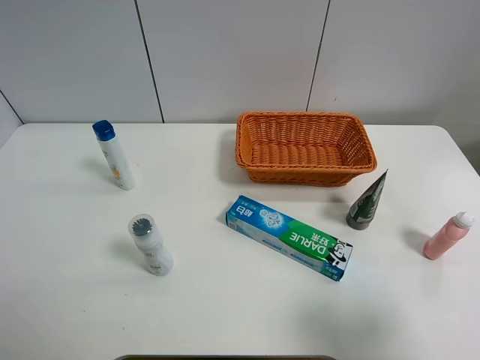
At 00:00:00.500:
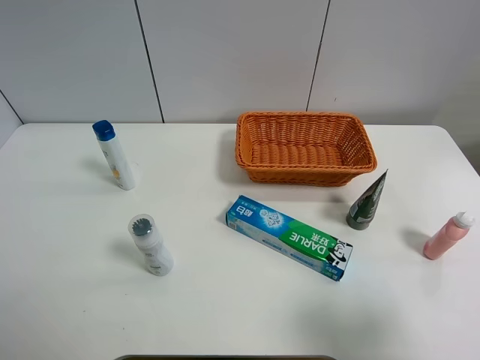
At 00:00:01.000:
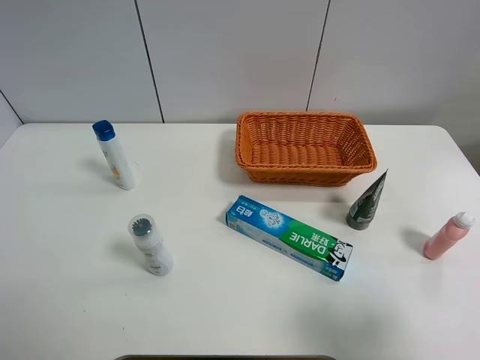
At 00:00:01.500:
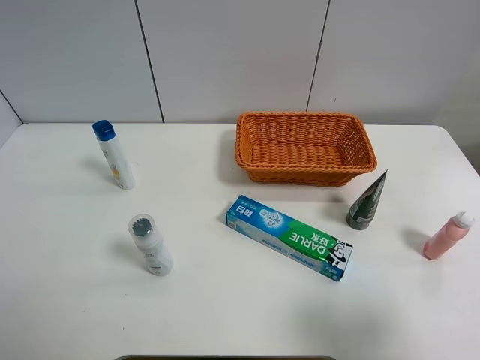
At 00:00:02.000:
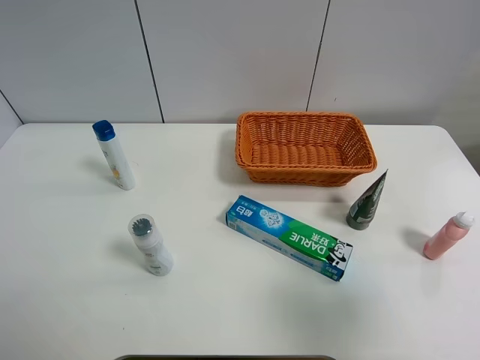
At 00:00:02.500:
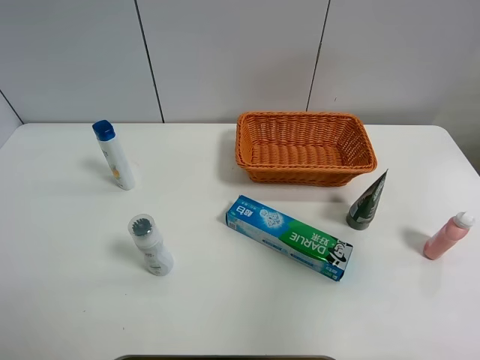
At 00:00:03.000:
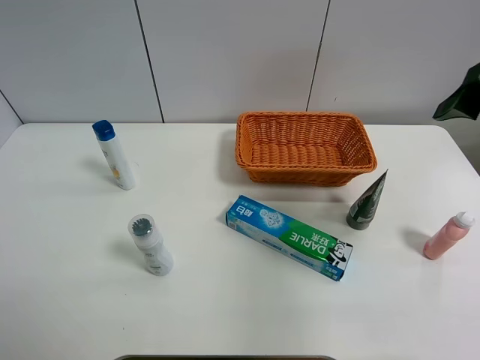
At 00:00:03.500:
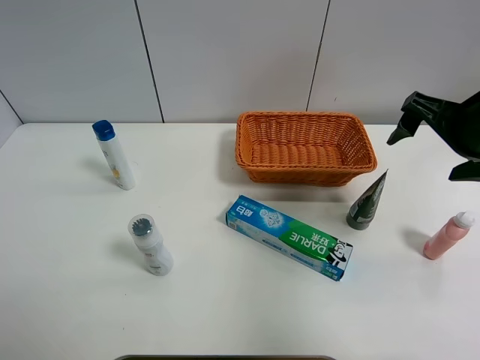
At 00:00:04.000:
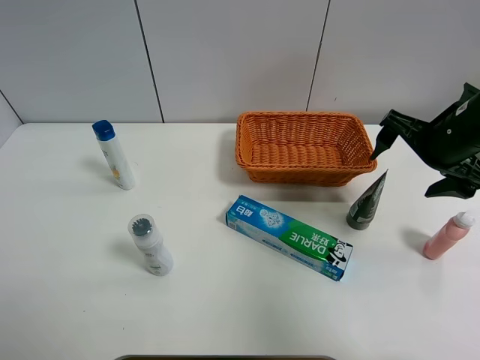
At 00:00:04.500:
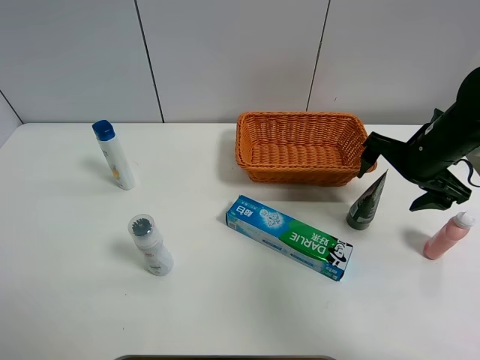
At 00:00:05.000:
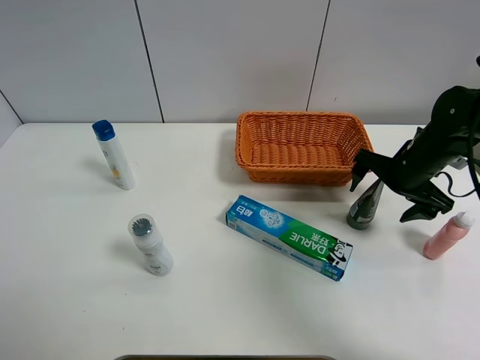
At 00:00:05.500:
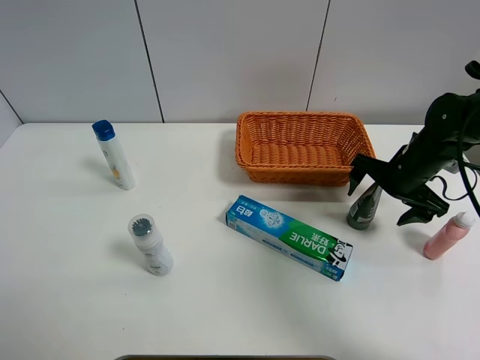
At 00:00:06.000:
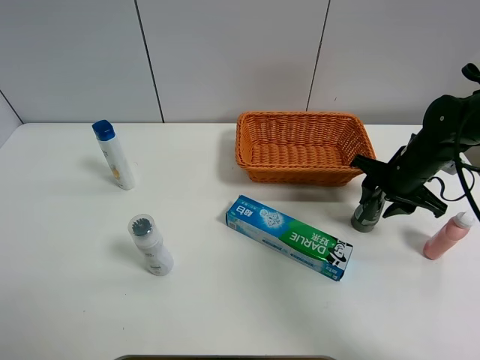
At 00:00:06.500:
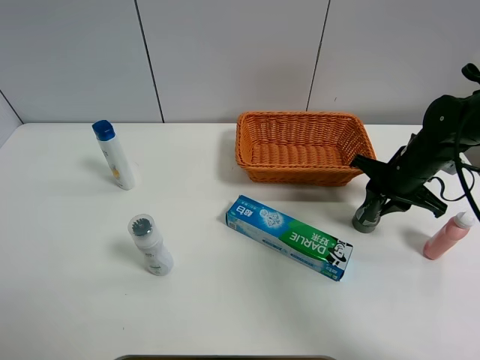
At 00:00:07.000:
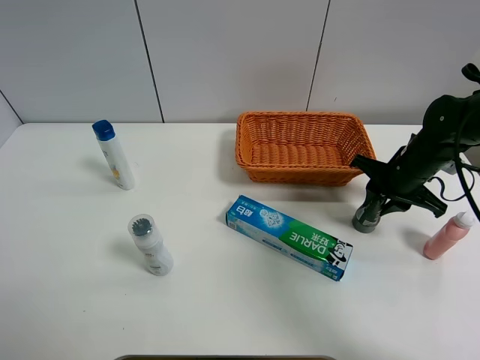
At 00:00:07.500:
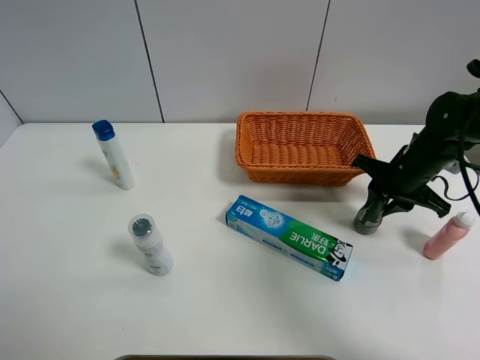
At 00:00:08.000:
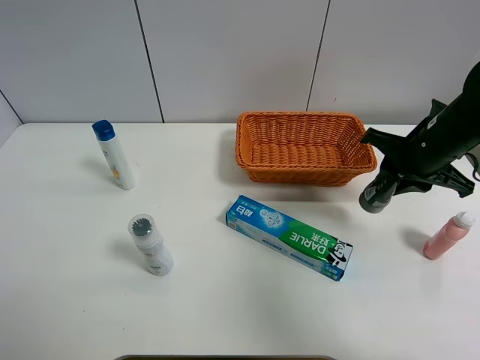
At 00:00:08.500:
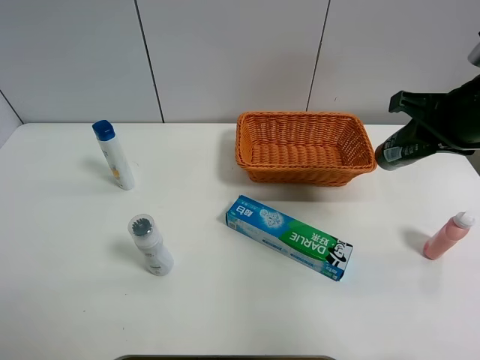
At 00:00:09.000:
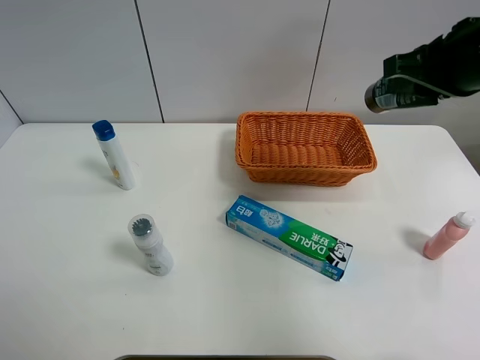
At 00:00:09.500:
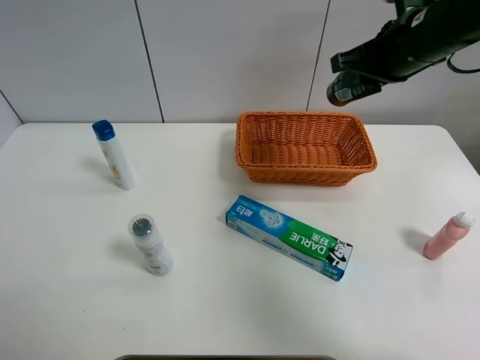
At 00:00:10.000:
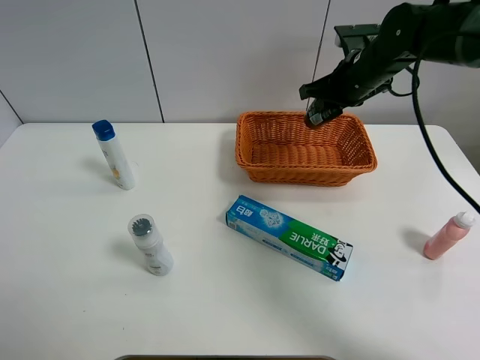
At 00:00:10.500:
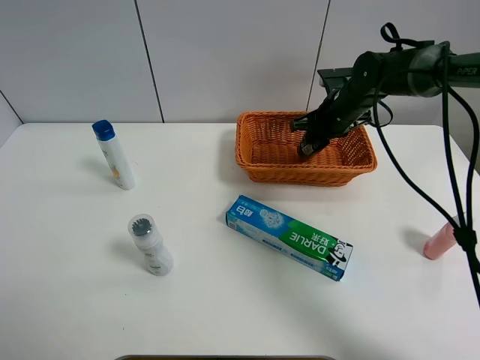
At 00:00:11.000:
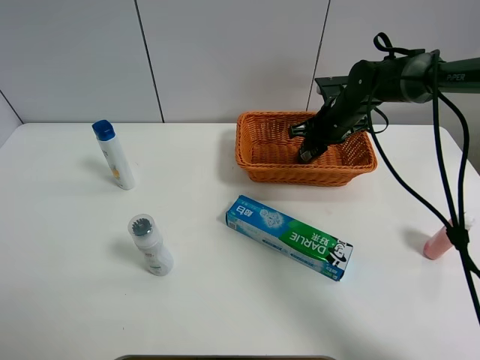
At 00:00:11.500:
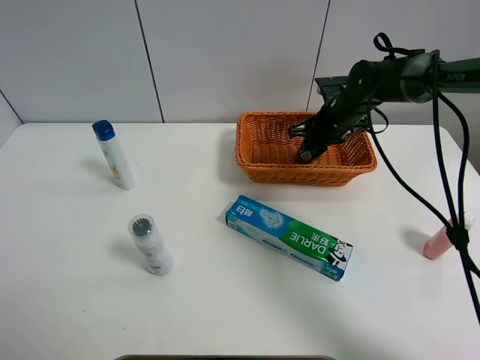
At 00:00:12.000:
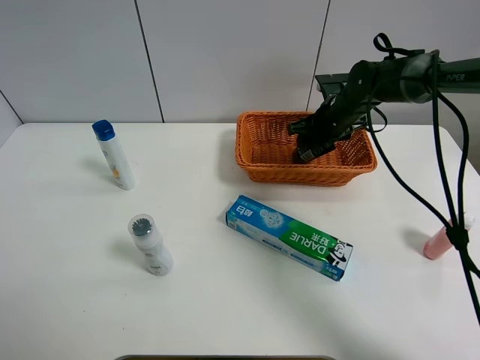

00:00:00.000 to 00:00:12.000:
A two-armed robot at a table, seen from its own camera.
Task of the whole recording: Place the object closest to the toothpaste in the basket.
Step, 00:00:00.000 to 00:00:06.000: Grasp the soft facial cleanser with right gripper.
00:00:00.000 to 00:00:02.000: The right gripper goes some 5 cm upward.
00:00:02.000 to 00:00:04.000: The right gripper is displaced forward by about 25 cm.
00:00:04.000 to 00:00:06.000: The right gripper moves downward, some 10 cm, and closes.
00:00:06.000 to 00:00:08.000: The right gripper is displaced upward by about 10 cm.
00:00:08.000 to 00:00:10.000: The right gripper is displaced forward and to the left by approximately 15 cm.
00:00:10.000 to 00:00:12.000: The right gripper goes about 10 cm downward, and opens up.

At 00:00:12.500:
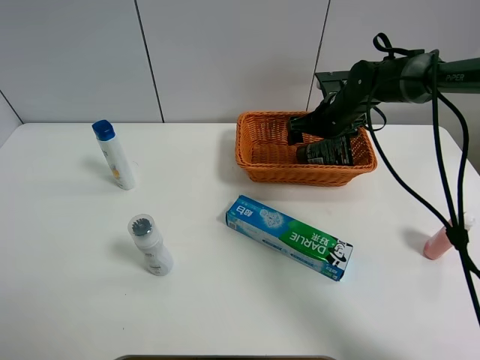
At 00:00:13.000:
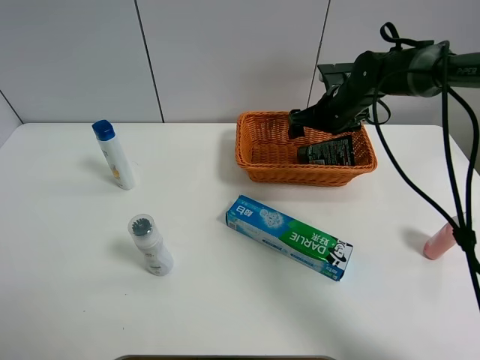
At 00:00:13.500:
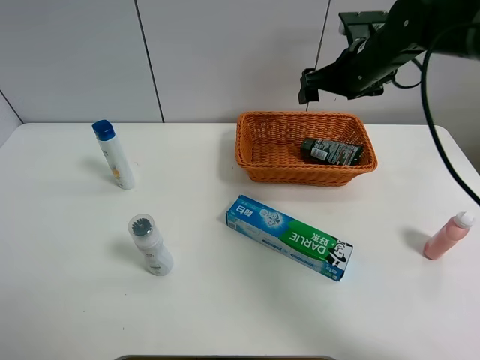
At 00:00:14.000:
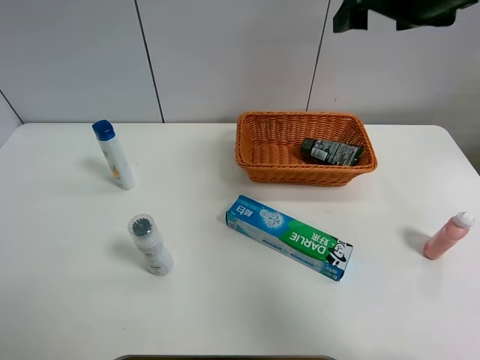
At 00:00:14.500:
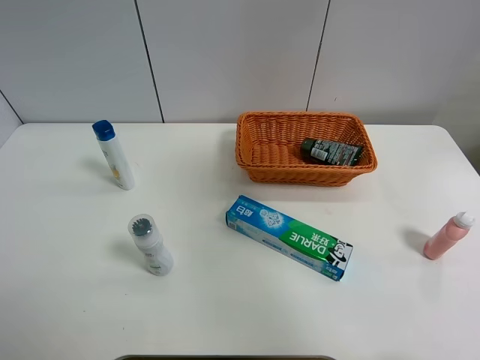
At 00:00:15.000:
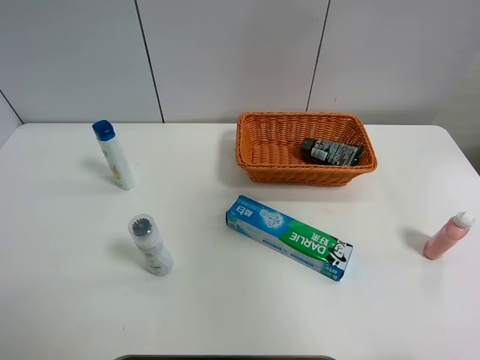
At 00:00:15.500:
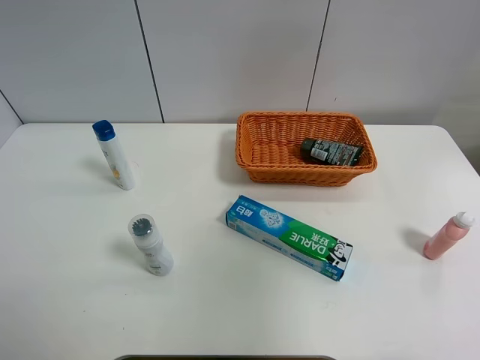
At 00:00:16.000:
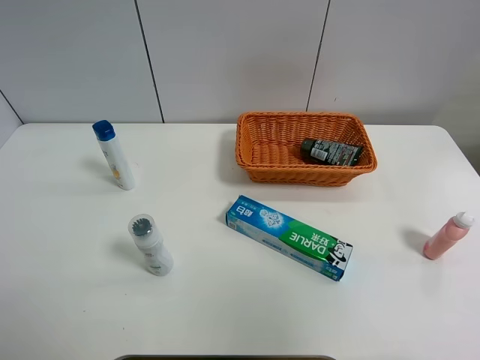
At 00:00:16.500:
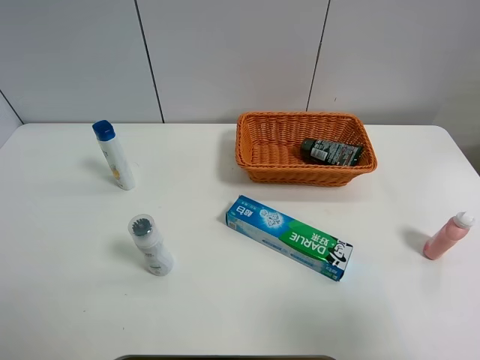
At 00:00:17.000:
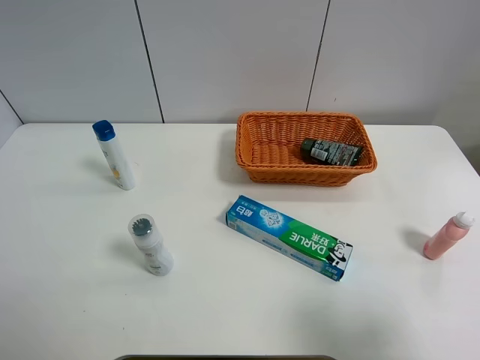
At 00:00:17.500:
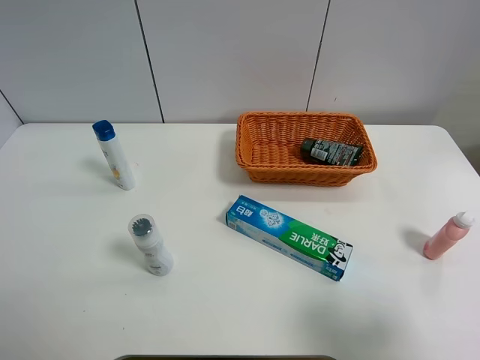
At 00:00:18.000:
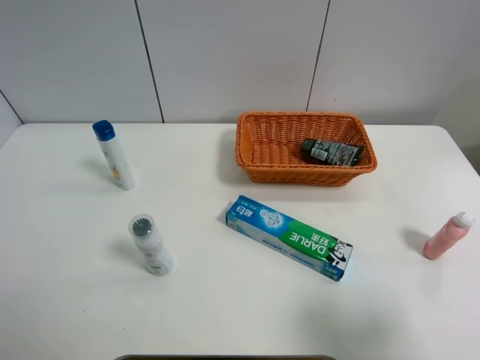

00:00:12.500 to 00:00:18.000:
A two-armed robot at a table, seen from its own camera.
Task of the whole recording: Place the object closest to the toothpaste in the basket.
00:00:12.500 to 00:00:14.500: The right gripper moves upward and backward, roughly 40 cm.
00:00:14.500 to 00:00:16.000: The right gripper goes approximately 25 cm backward.
00:00:16.000 to 00:00:18.000: The right gripper shifts approximately 20 cm downward.
